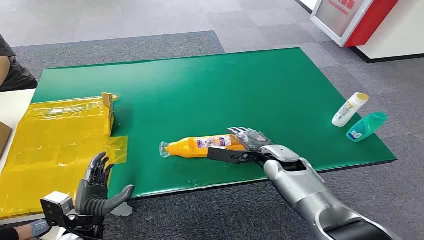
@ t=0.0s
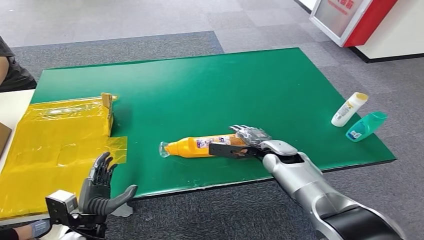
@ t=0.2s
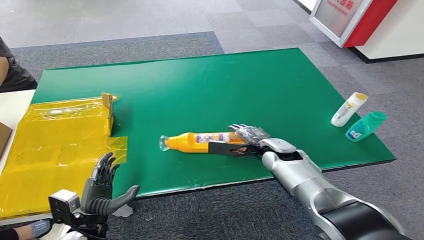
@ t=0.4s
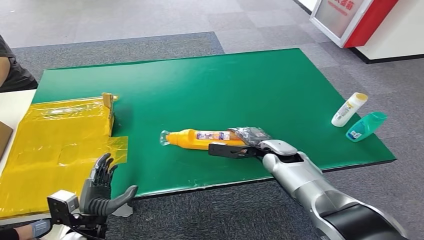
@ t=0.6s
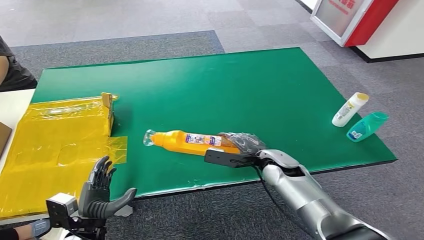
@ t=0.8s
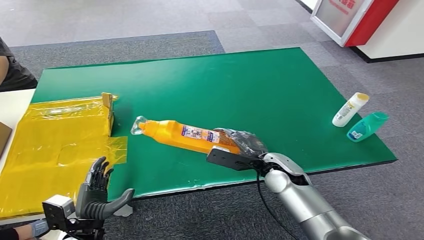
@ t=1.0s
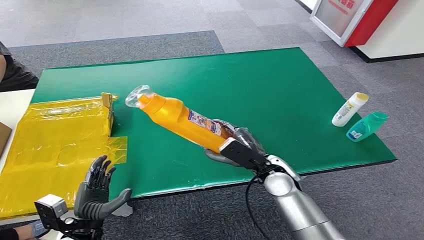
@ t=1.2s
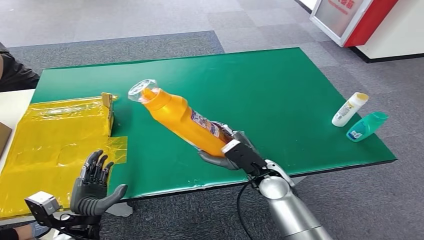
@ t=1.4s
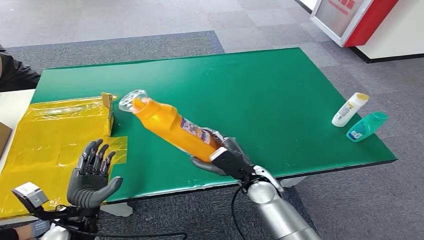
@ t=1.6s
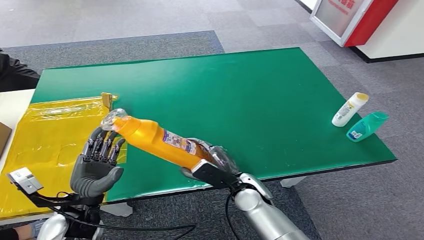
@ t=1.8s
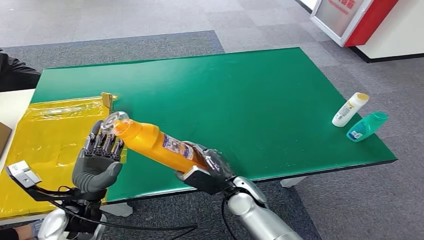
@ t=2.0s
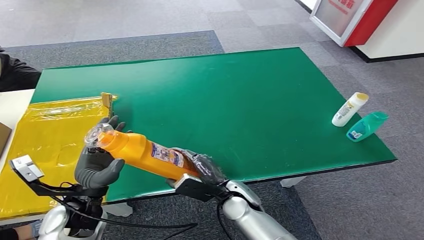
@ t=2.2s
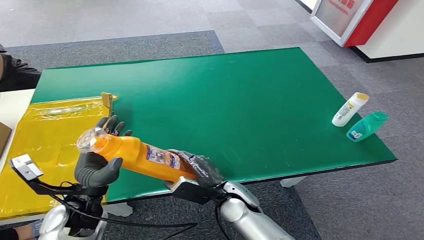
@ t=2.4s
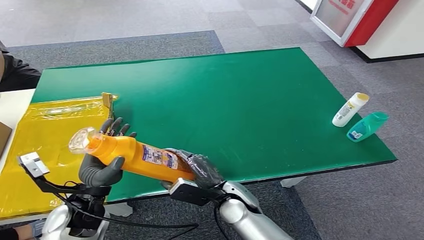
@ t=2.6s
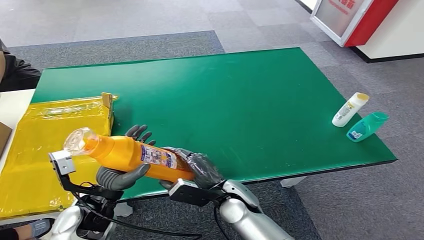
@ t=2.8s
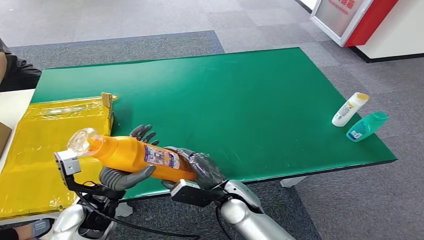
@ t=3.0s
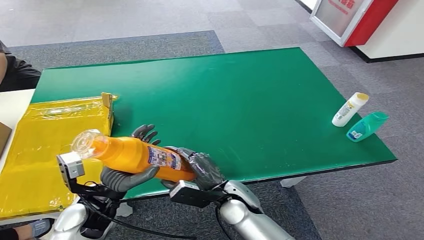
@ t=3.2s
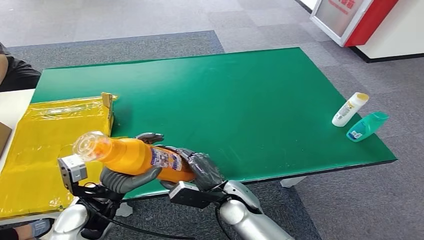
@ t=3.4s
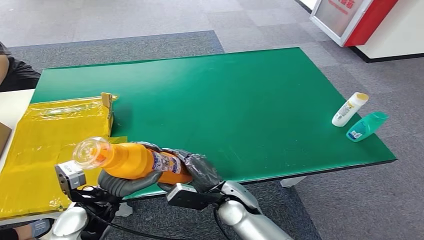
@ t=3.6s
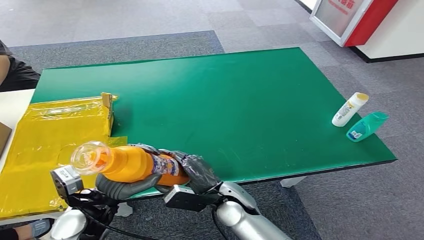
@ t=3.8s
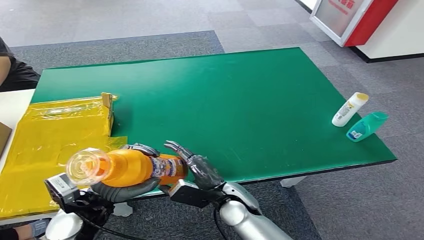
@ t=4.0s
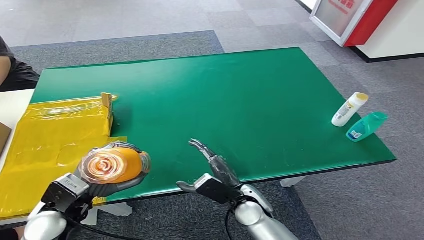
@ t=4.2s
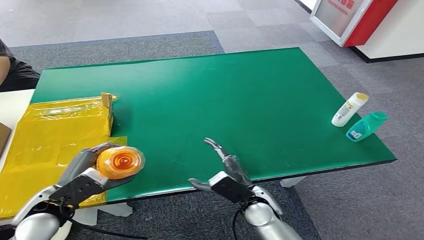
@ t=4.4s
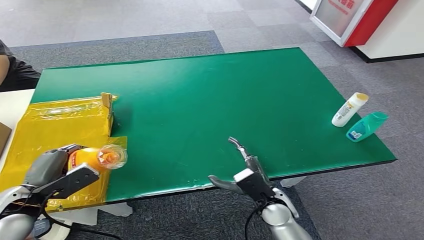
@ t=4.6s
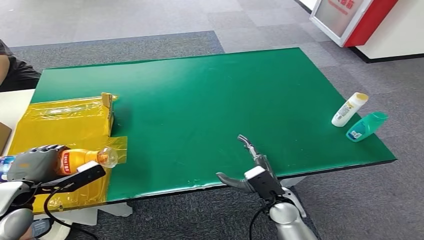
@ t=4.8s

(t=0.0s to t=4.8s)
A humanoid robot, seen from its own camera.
Step, t=0.0s - t=1.6s: Pick up the bottle from the table.
Step, t=1.8s - t=4.8s: Turn the bottle to the front side.
t=1.6s - t=3.2s: The left hand shifts about 5 cm upward and to the right, while the right hand travels to the left by approximately 5 cm.
t=3.2s - t=4.8s: The left hand moves to the left, roughly 15 cm. The right hand shifts about 10 cm to the right.
